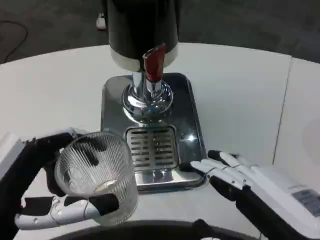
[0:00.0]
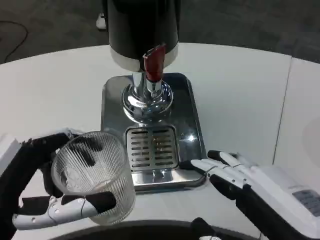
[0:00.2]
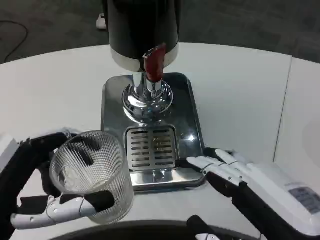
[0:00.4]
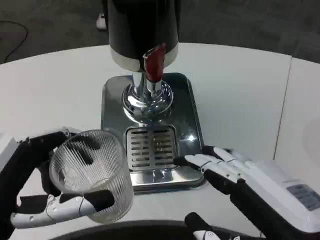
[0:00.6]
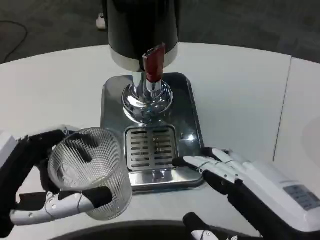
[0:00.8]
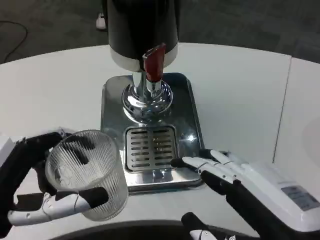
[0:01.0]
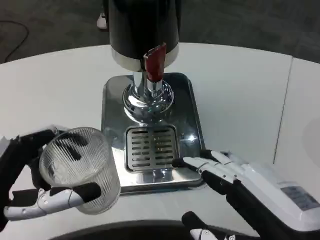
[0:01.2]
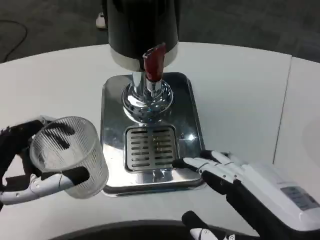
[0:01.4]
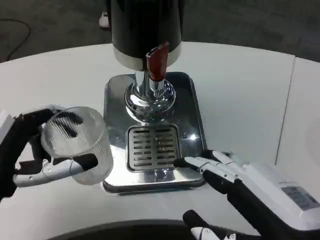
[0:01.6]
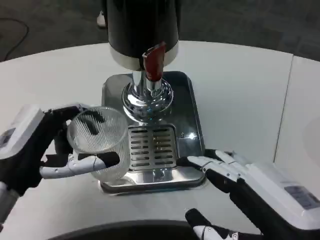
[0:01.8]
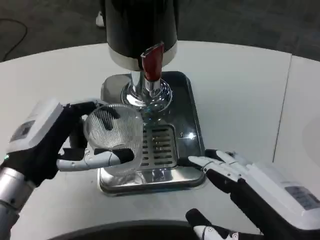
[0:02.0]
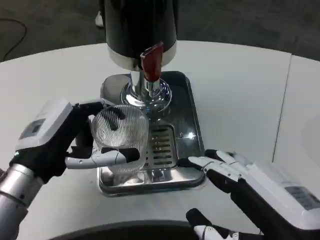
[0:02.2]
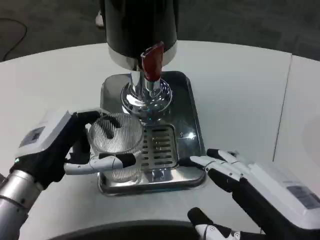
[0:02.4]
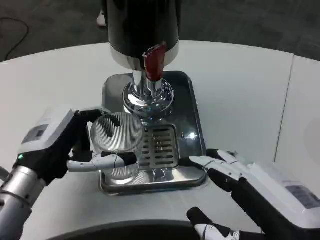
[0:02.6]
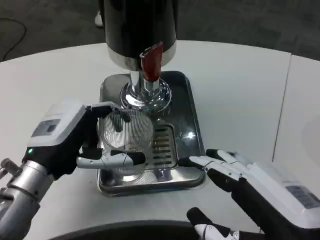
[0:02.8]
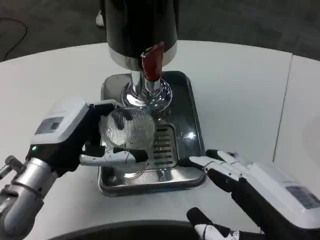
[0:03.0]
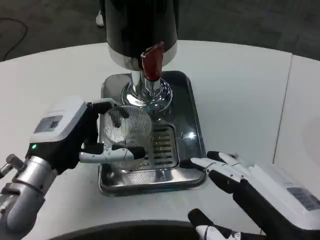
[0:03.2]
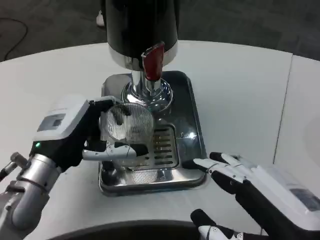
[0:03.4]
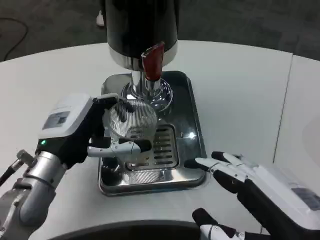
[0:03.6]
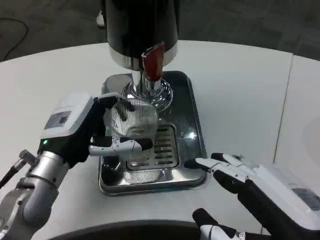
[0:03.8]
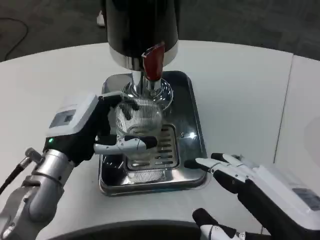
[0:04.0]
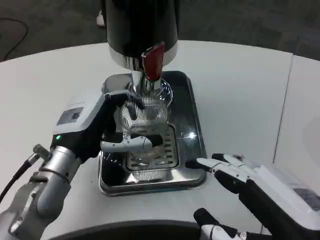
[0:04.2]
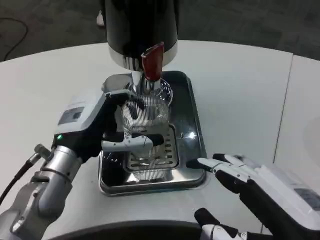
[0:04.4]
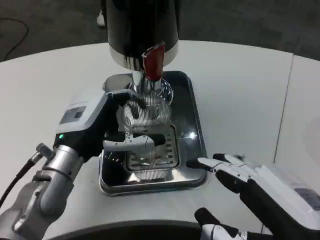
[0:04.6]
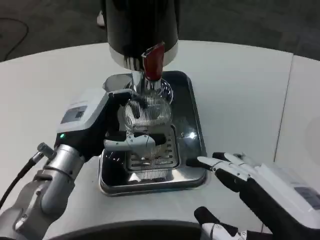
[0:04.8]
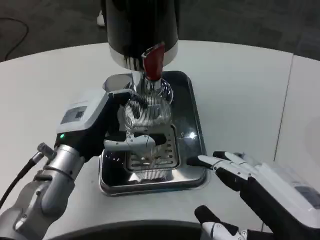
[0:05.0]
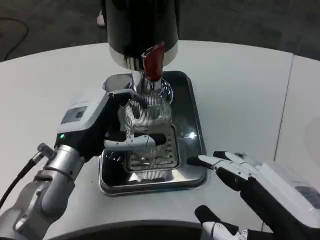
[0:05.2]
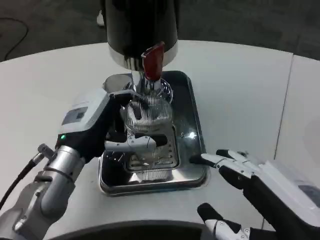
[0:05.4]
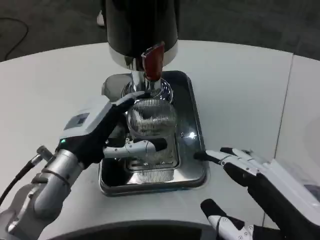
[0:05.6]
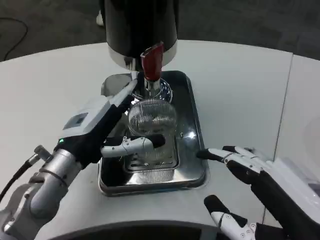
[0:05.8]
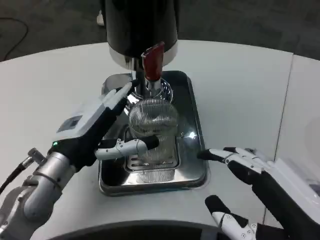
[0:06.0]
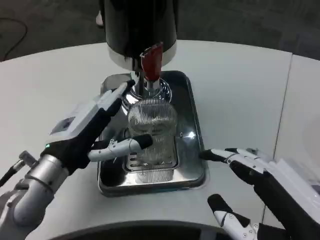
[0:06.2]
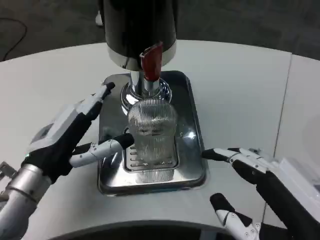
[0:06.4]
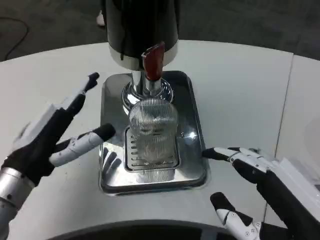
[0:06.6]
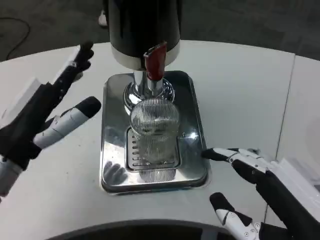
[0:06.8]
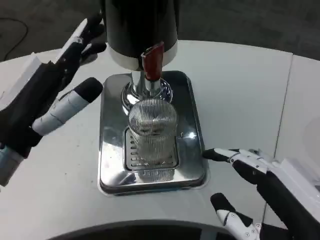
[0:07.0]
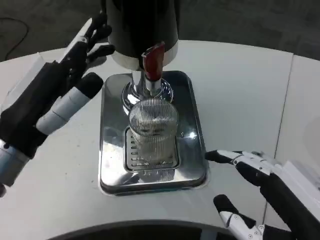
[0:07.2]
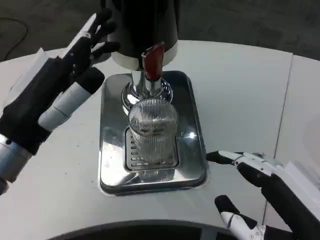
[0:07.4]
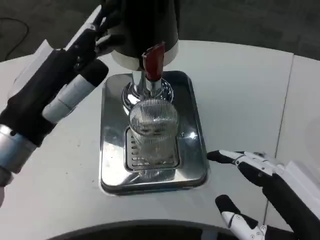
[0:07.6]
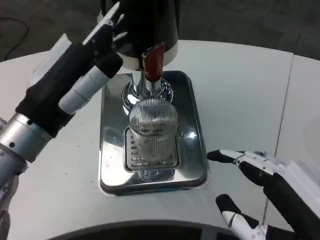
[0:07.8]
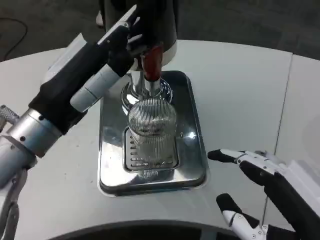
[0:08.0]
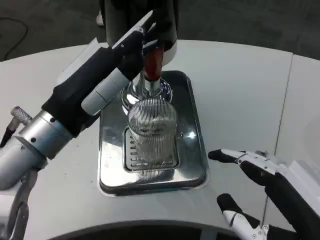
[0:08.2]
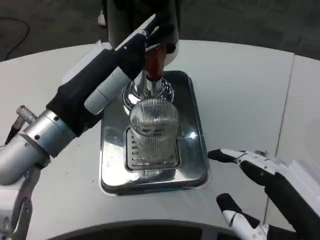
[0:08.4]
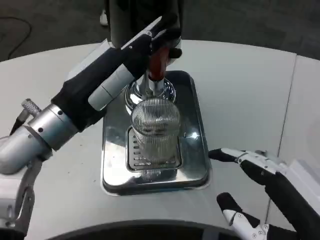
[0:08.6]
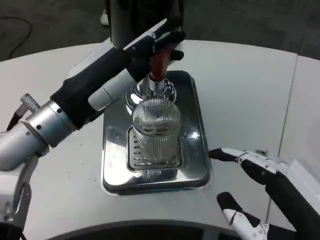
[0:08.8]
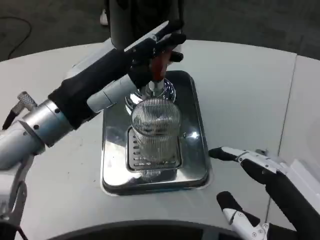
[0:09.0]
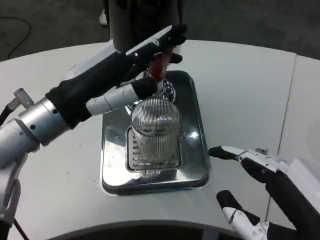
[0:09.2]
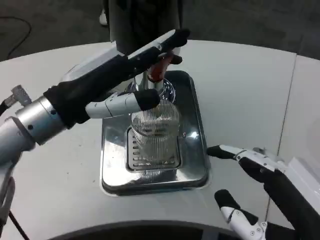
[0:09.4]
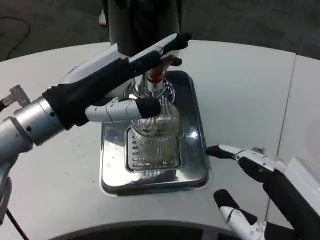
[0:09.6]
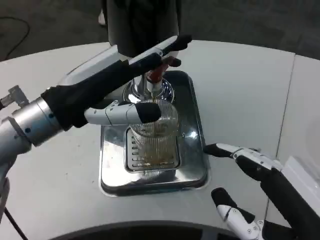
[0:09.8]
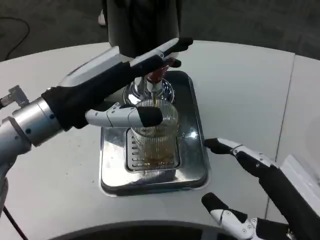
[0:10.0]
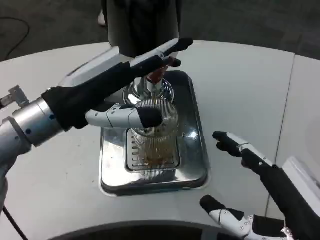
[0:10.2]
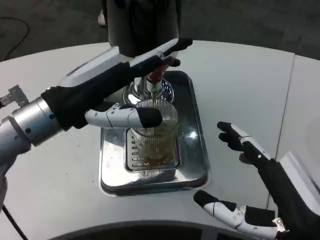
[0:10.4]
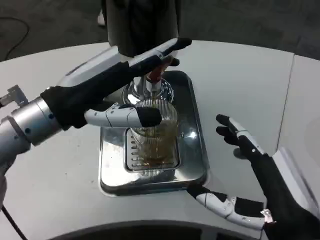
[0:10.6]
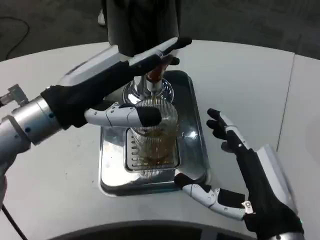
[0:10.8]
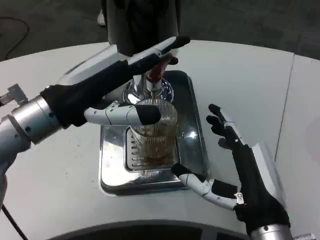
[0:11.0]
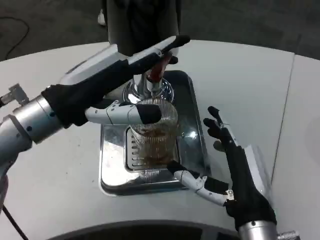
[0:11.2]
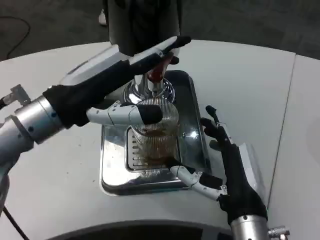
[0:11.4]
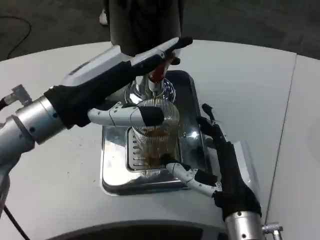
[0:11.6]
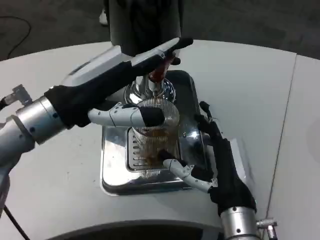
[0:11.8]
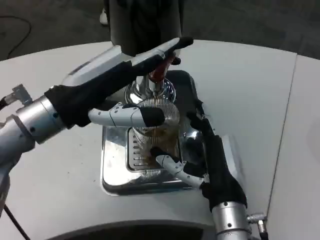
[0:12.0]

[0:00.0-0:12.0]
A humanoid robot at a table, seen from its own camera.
Task of the whole recording: Grasp the cup under the faucet to collect the drink, then remove the cup.
0.0 to 1.6 s: The left hand goes roughly 5 cm forward.
1.6 to 3.0 s: The left hand is displaced forward by about 5 cm.
3.0 to 4.4 s: The hands stay close to where they were, moving slightly.
6.0 to 7.6 s: The left hand is displaced upward and backward by approximately 10 cm.
7.6 to 9.0 s: The left hand goes roughly 5 cm forward.
9.0 to 10.4 s: The right hand ends up some 5 cm from where it was.
10.4 to 12.0 s: The right hand heads forward, to the left and downward, covering about 15 cm.

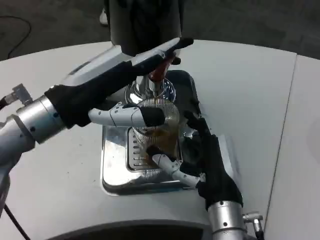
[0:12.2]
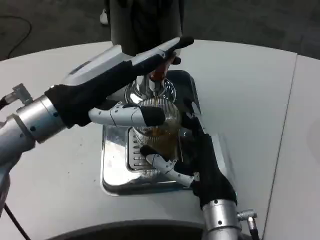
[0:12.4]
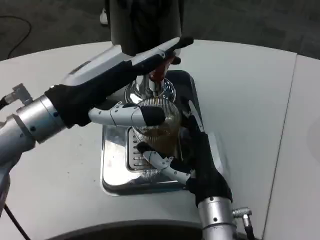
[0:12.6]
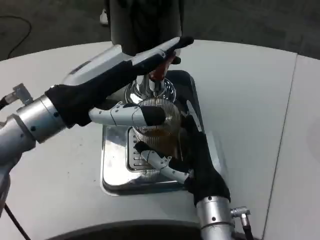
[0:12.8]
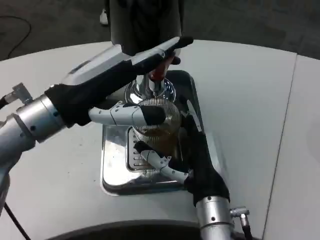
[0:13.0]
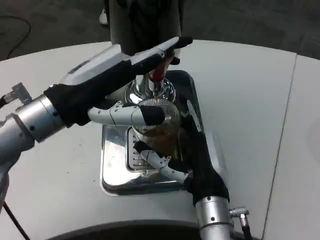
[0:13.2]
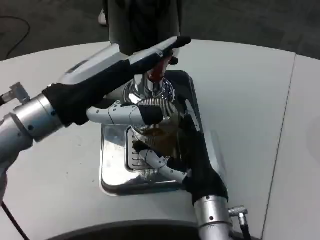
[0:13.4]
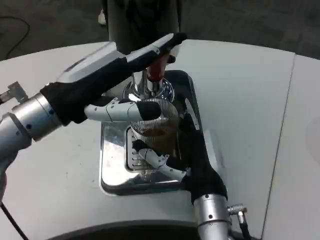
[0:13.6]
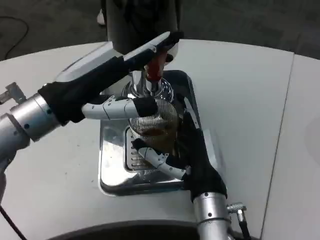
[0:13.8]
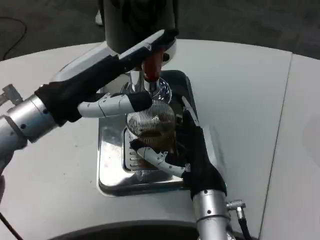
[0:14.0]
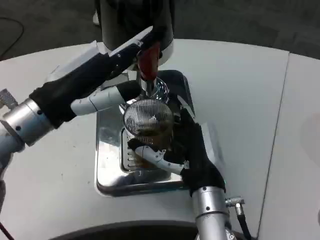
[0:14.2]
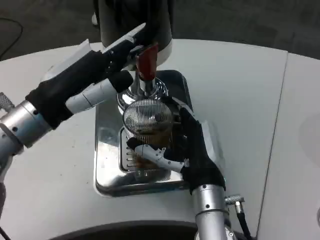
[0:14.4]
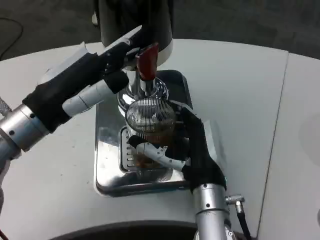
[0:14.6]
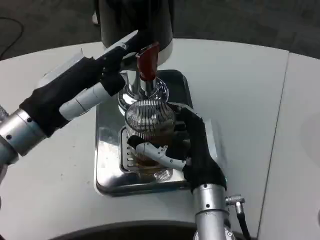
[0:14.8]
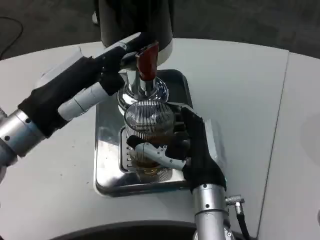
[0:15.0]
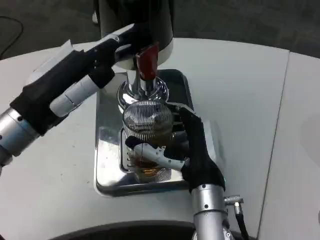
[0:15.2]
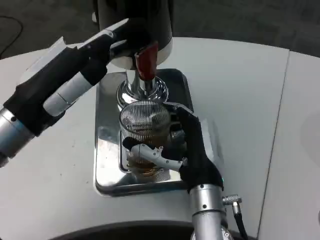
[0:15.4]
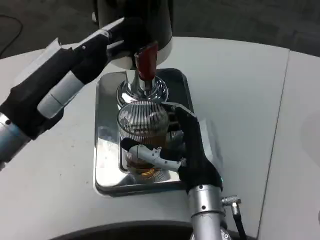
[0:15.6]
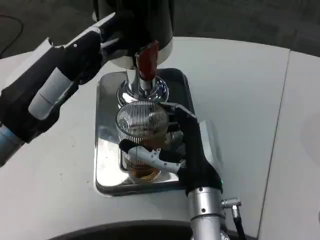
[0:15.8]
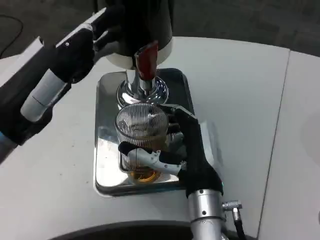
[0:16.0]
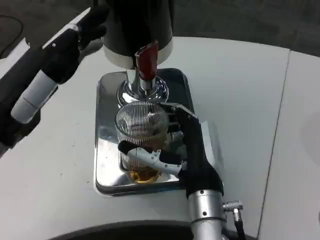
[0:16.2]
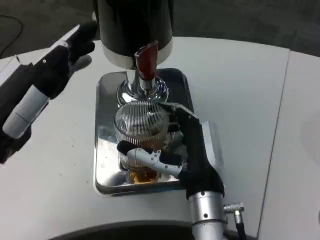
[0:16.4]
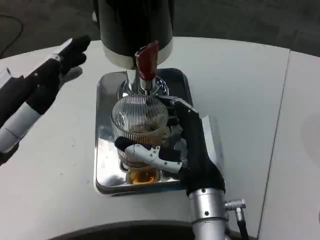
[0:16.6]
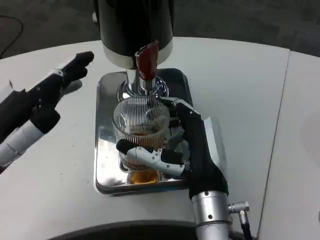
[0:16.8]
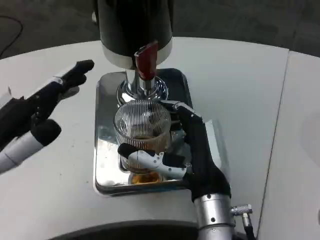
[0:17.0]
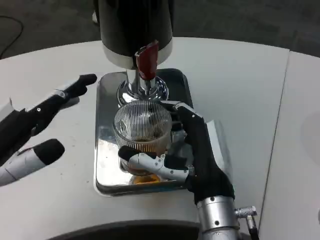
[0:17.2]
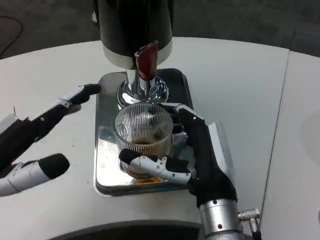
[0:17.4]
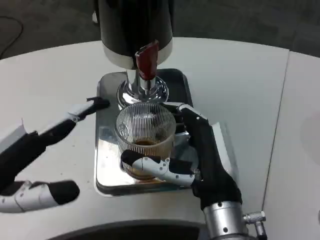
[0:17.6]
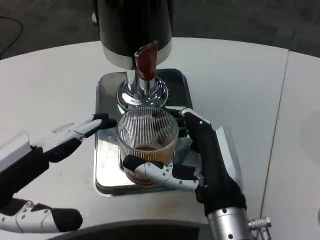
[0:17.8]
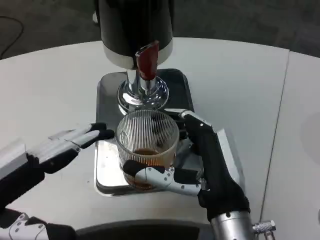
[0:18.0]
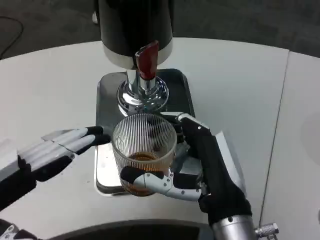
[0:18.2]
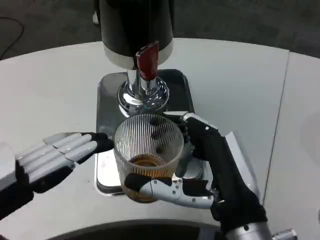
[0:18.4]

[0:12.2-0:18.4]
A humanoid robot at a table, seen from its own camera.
Task of the whole recording: Grasp the cup under the faucet to collect the drink, then remove the cup.
15.4 to 16.8 s: The left hand shifts roughly 5 cm backward.
16.8 to 18.4 s: The two hands go roughly 5 cm backward.

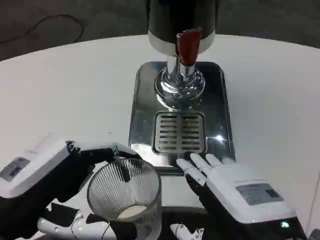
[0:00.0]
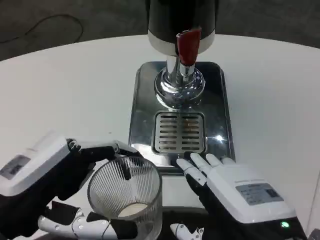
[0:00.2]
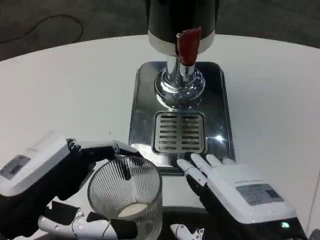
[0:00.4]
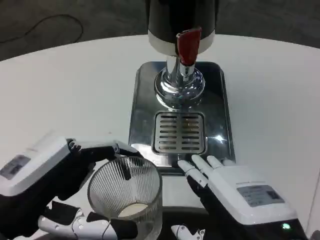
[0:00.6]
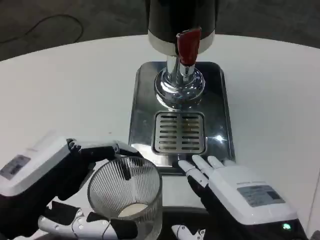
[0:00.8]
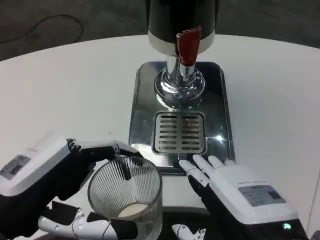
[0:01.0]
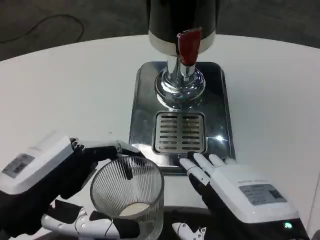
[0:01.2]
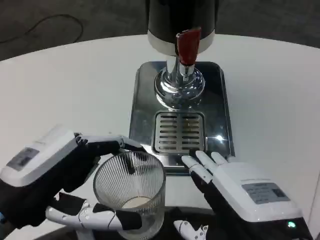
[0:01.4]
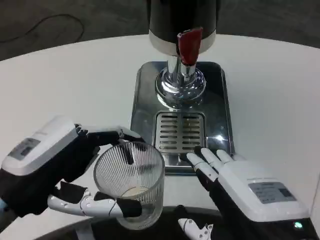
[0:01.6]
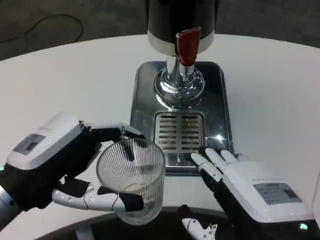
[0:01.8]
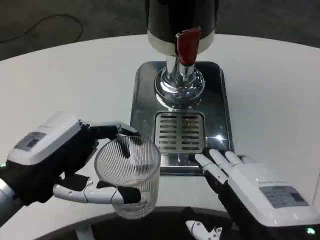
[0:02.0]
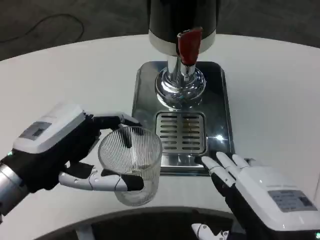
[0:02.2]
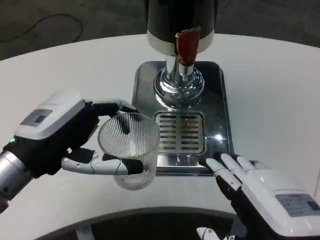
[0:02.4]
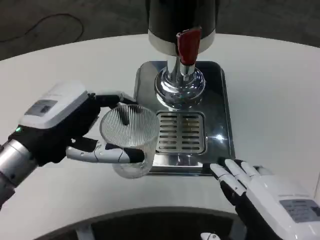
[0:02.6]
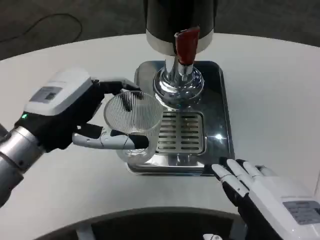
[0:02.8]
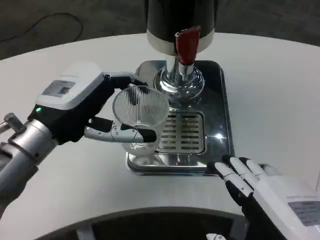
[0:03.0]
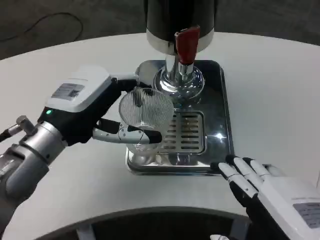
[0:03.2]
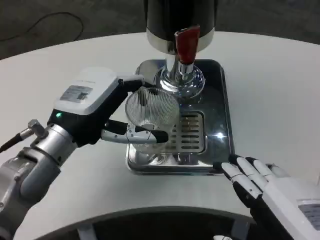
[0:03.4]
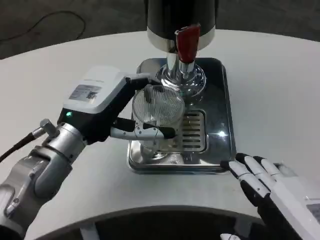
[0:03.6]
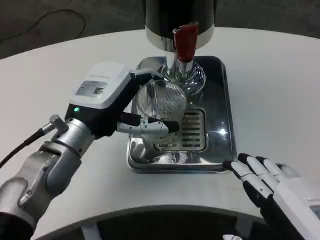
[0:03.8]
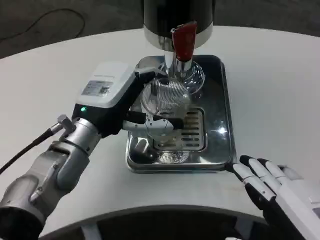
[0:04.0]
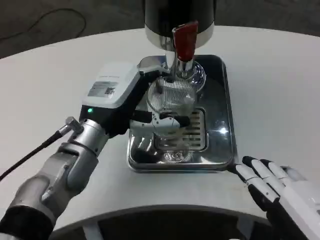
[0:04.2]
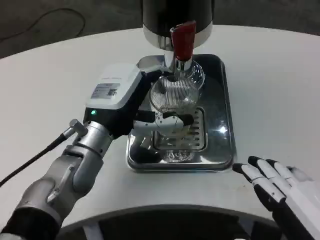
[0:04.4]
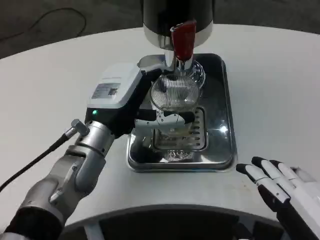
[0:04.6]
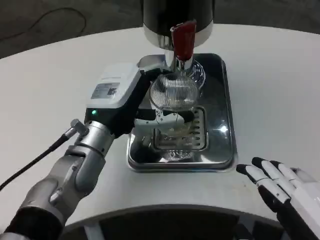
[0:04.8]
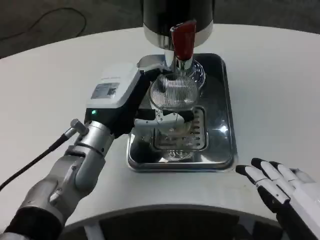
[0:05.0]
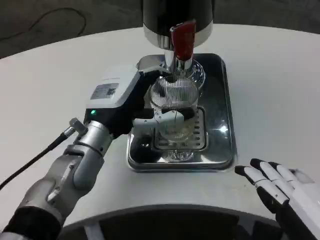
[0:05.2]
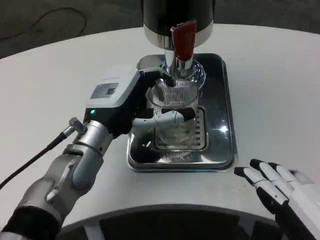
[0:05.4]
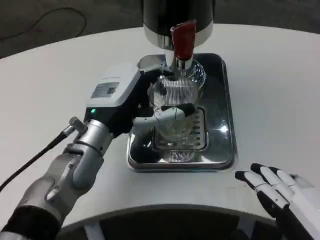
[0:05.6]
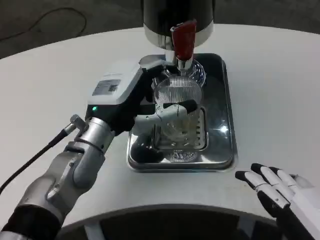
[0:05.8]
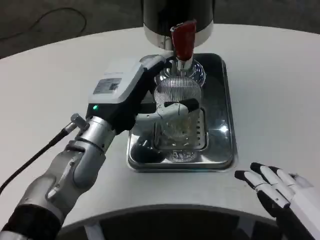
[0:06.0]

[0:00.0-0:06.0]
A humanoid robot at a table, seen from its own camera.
Task of the whole recording: Grasp the cup under the faucet to collect the drink, then remove the cup.
1.6 to 3.0 s: The left hand heads forward, covering roughly 10 cm.
3.0 to 4.4 s: The left hand shifts some 5 cm to the right.
4.4 to 6.0 s: Neither hand changes place.
